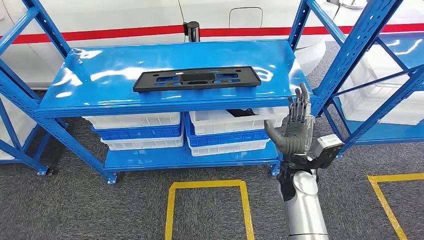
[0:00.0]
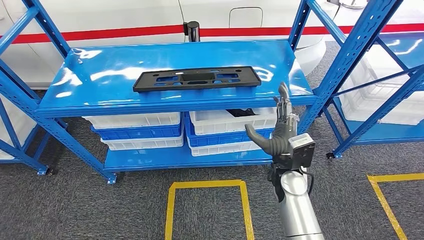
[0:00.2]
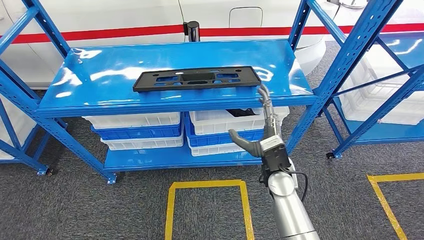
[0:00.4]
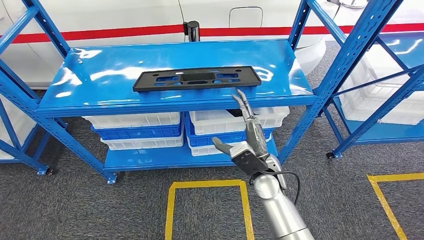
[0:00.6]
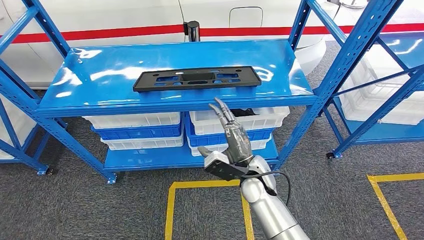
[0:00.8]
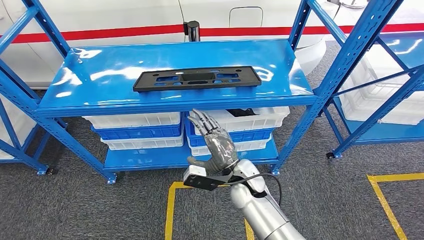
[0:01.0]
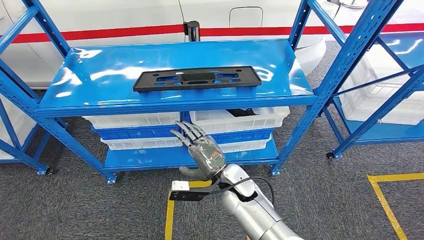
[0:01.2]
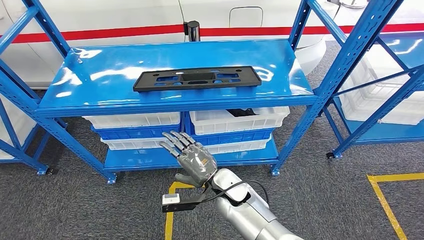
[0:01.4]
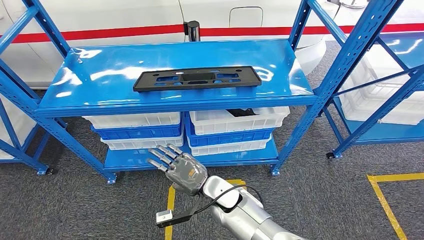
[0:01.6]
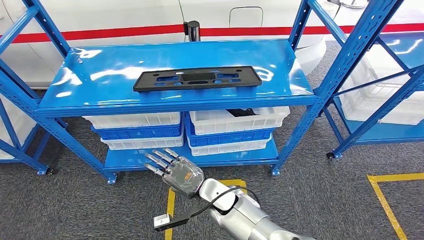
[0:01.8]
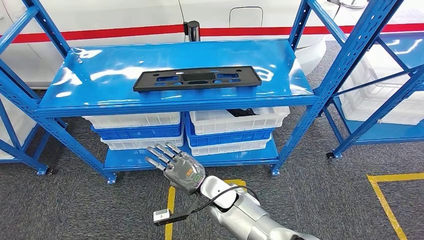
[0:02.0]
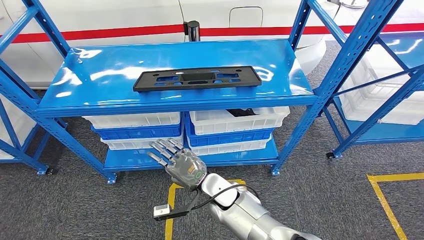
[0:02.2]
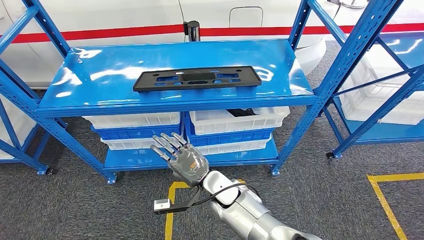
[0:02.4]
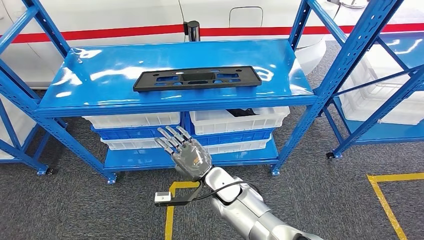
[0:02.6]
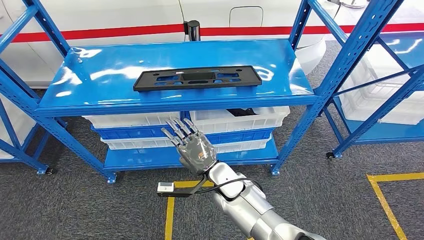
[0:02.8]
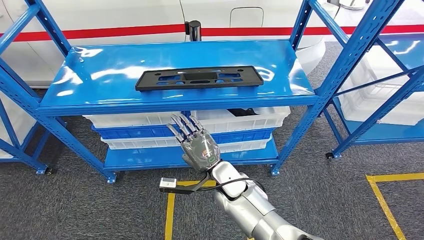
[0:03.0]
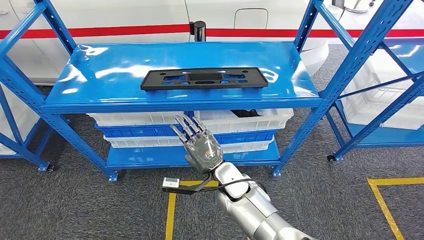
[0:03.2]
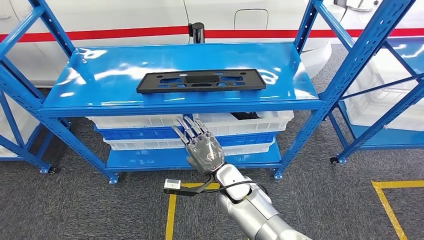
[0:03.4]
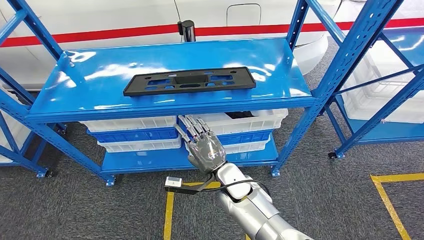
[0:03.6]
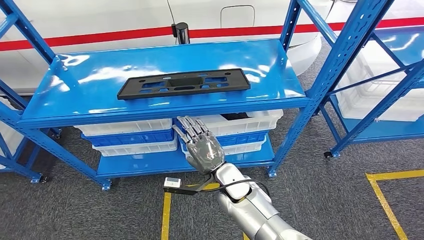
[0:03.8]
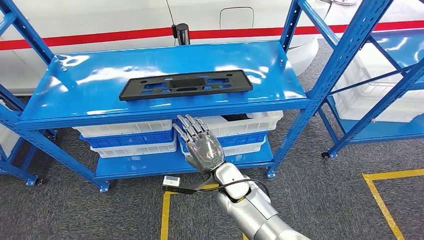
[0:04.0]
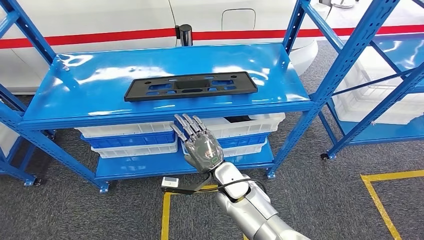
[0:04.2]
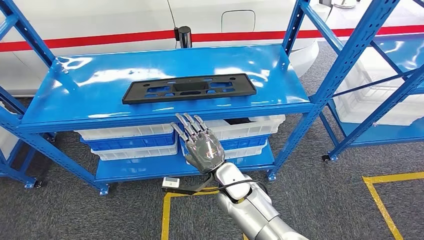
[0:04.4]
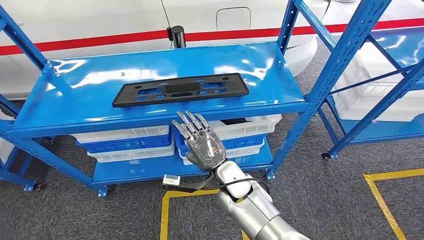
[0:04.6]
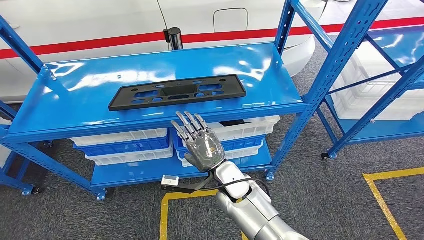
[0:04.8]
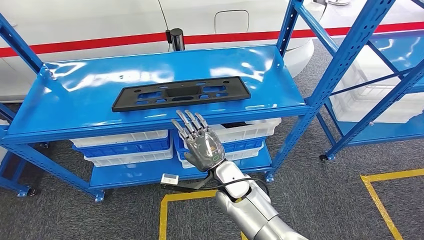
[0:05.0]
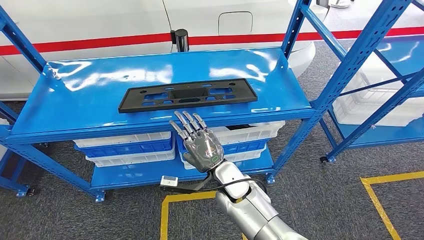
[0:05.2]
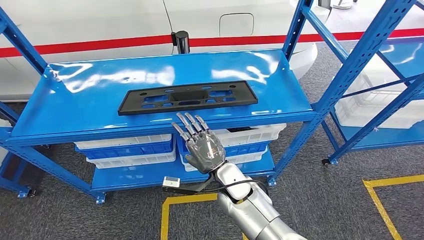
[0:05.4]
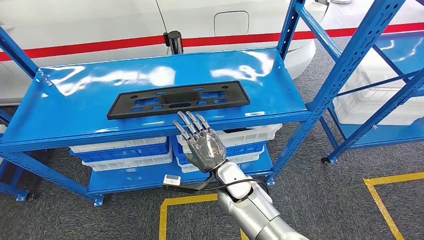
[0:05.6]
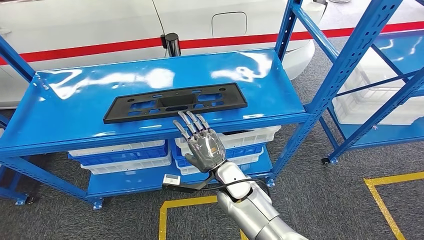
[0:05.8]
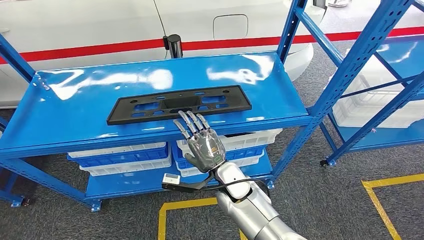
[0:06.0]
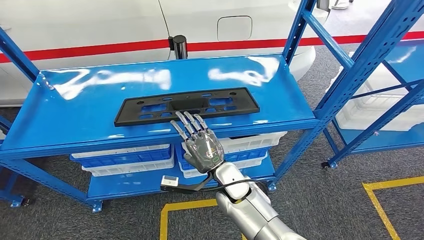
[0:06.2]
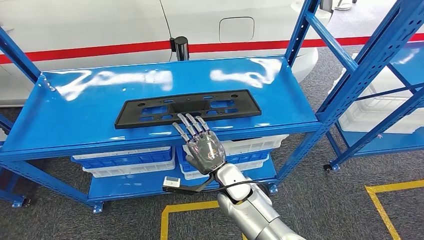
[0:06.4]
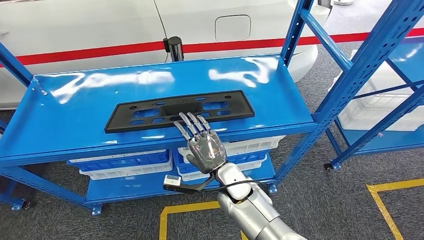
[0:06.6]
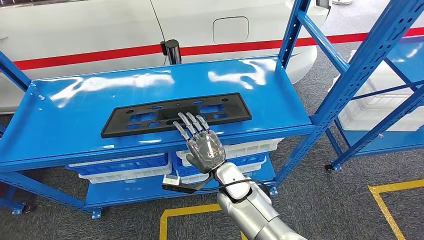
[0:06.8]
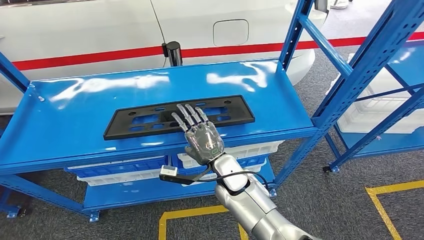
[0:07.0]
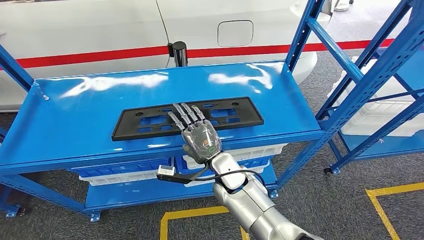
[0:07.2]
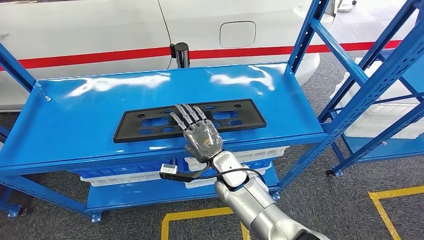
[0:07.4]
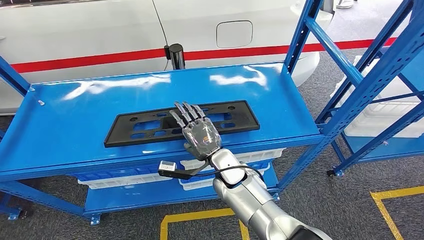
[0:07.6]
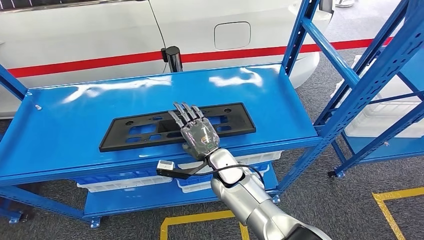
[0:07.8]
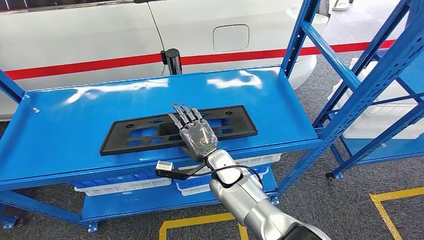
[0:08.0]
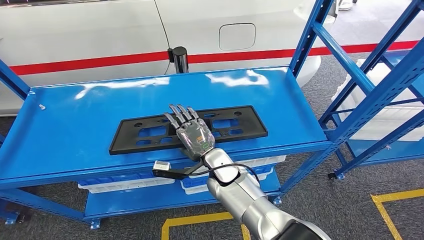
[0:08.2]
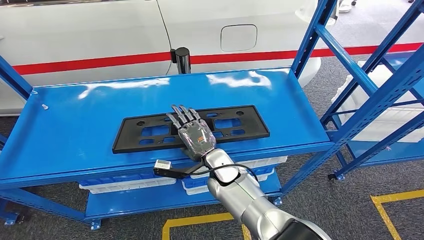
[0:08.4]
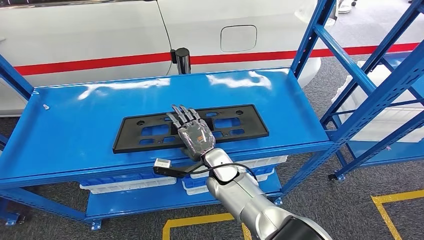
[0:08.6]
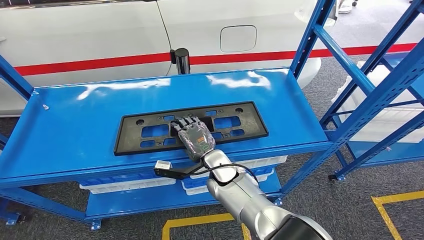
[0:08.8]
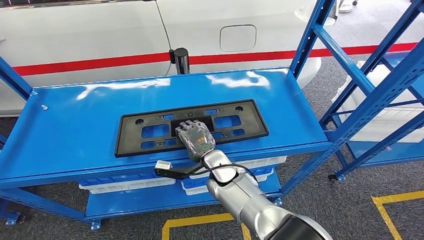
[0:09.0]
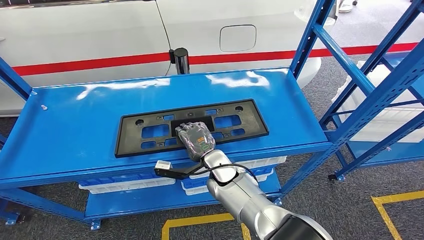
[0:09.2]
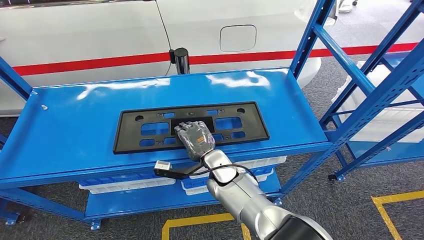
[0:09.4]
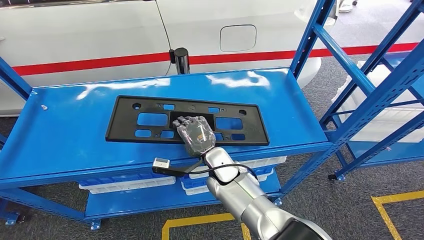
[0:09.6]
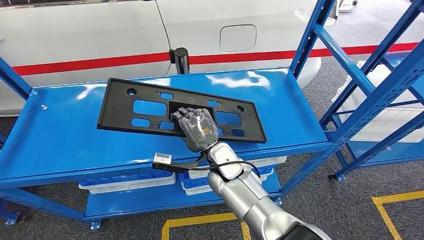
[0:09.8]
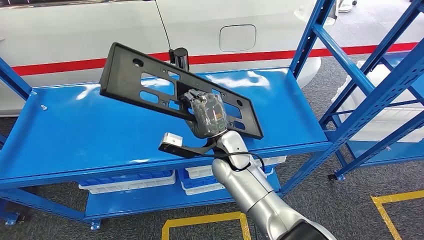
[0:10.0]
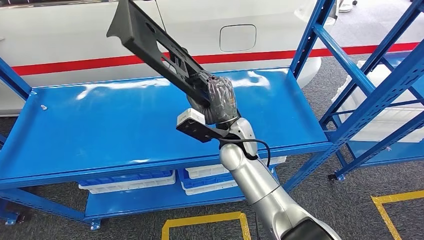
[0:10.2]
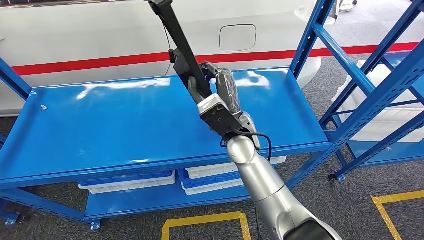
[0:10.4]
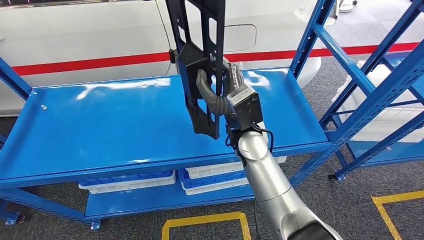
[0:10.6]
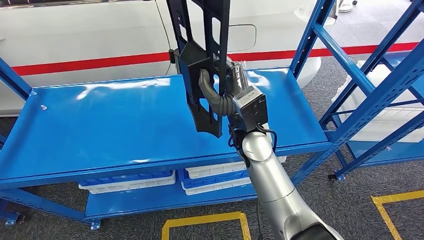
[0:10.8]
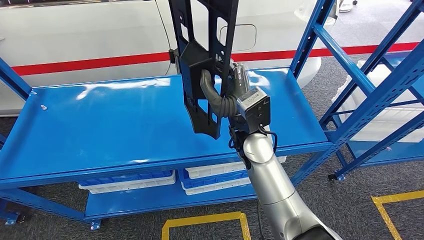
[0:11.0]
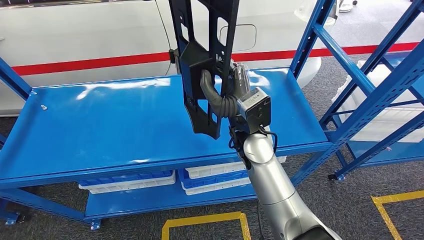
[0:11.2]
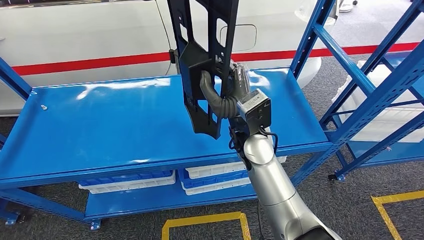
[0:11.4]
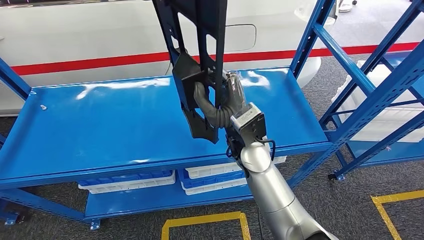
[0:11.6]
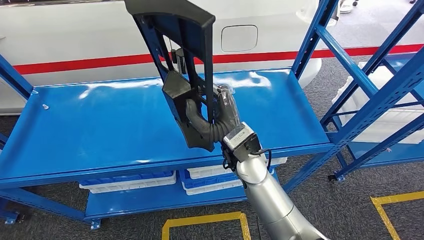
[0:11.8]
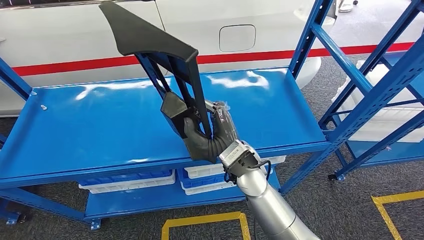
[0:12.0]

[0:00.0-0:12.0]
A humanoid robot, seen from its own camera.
0:01.6 to 0:03.0: The hands stay close to where they were, moving slightly.
0:09.0 to 0:10.4: The right hand shifts about 15 cm upward.
0:10.4 to 0:12.0: The right hand shifts some 5 cm backward.

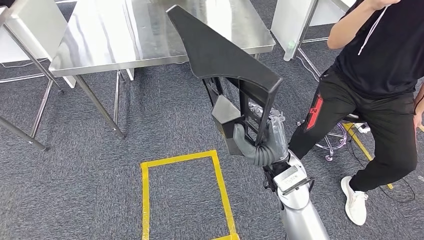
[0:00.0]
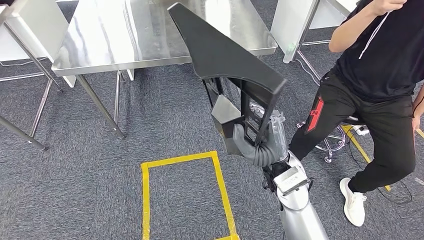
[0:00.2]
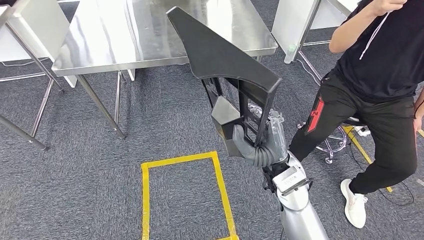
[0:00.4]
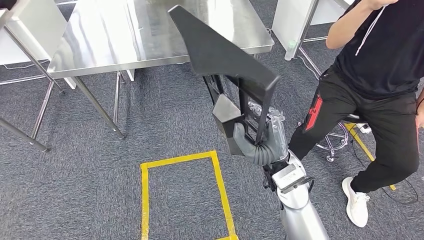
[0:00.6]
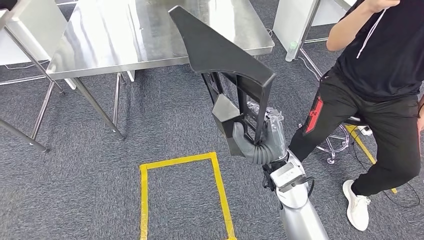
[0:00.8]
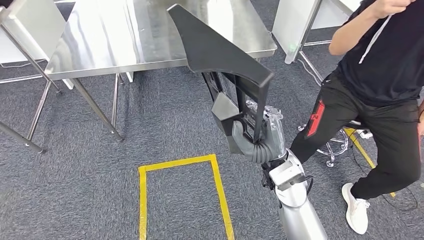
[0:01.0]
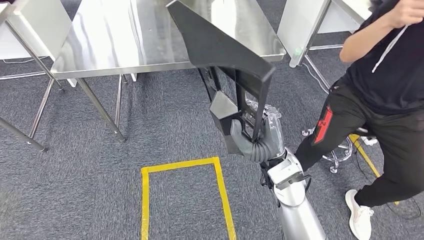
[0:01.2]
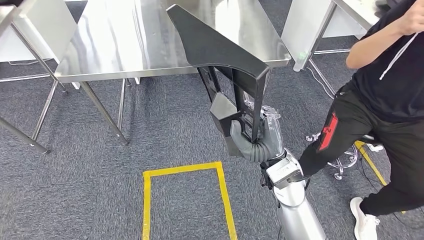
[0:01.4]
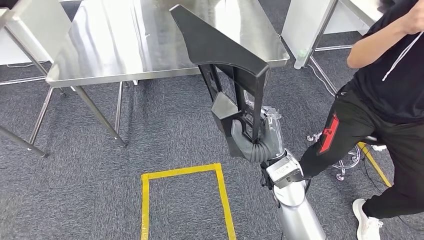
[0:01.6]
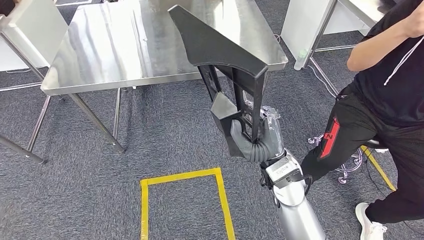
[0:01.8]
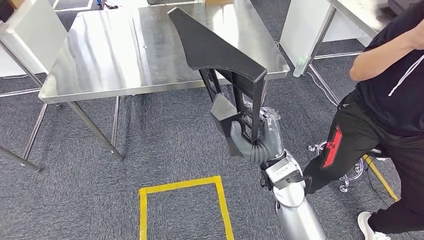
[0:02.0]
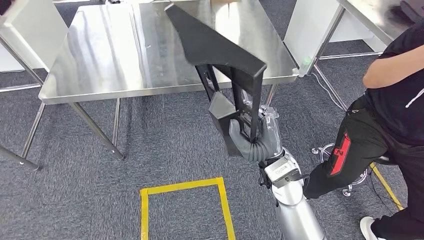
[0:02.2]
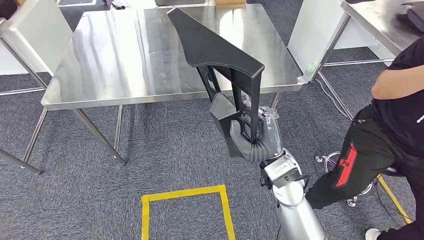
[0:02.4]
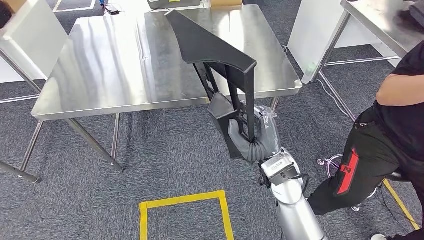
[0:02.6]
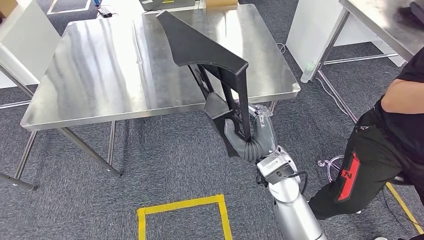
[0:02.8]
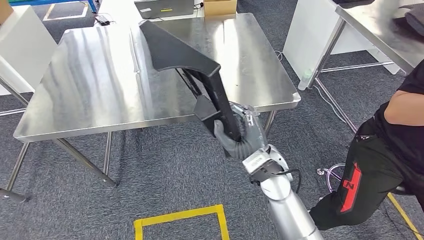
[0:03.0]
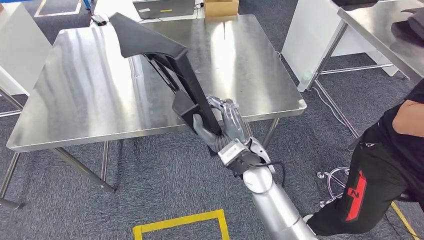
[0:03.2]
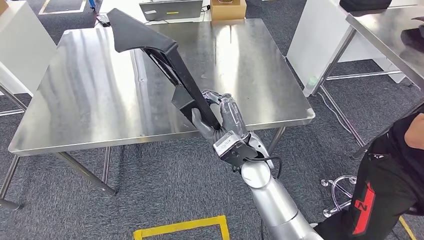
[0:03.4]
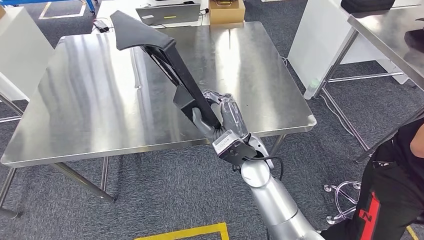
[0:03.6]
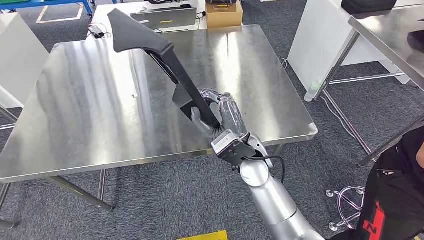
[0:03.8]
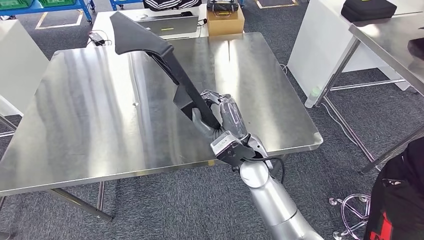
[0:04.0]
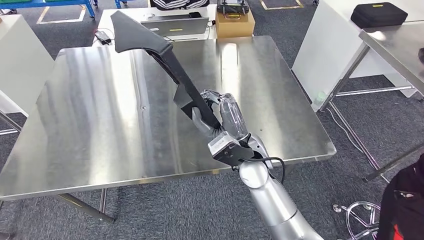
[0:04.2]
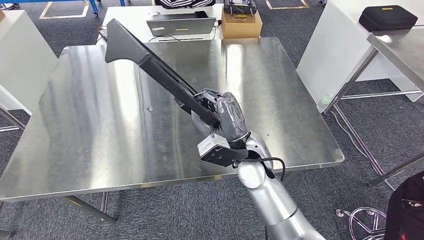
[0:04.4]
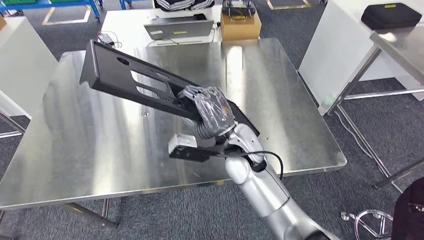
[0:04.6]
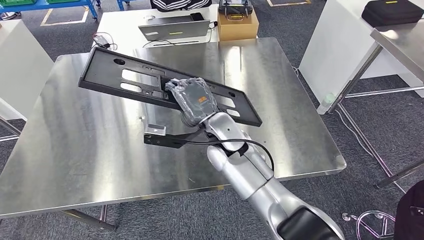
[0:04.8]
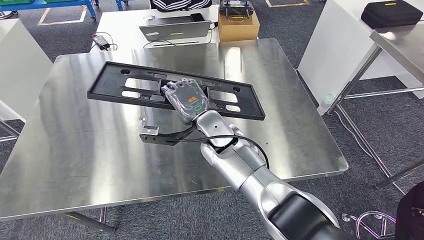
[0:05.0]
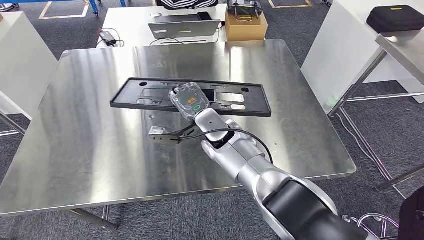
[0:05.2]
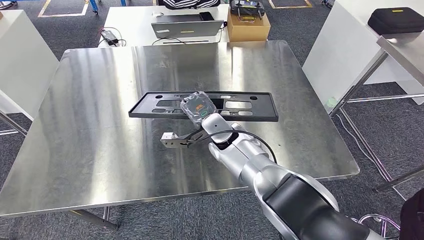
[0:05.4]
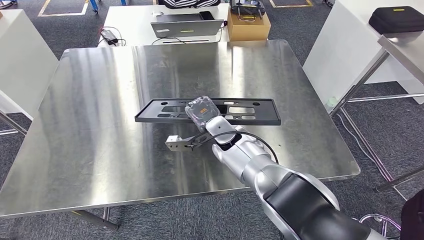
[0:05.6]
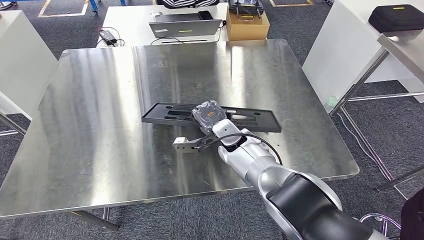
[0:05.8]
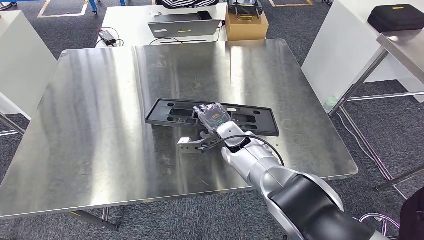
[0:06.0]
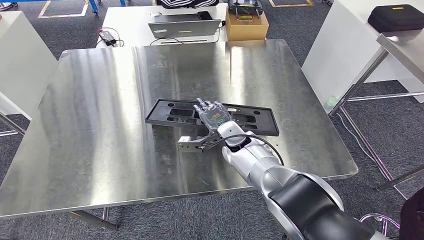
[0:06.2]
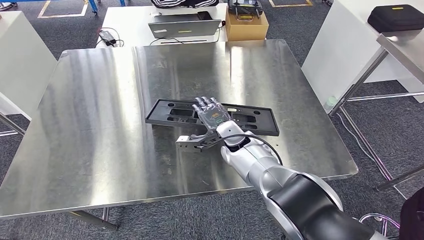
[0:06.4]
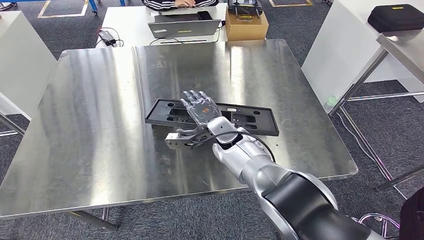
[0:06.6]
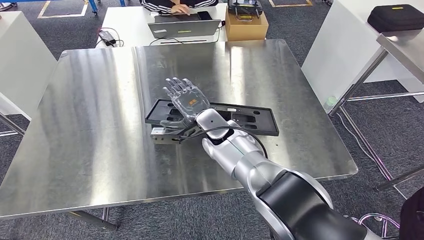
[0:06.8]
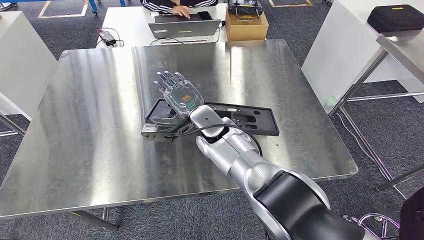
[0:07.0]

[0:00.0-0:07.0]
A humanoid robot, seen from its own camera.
0:05.6 to 0:07.0: The right hand moves approximately 5 cm.
